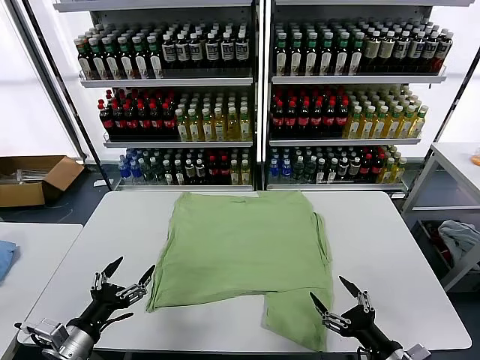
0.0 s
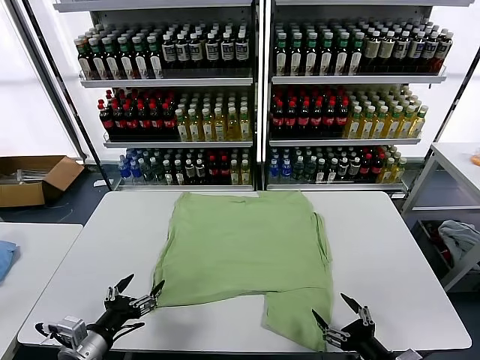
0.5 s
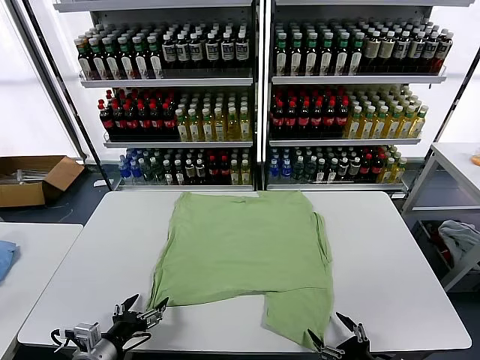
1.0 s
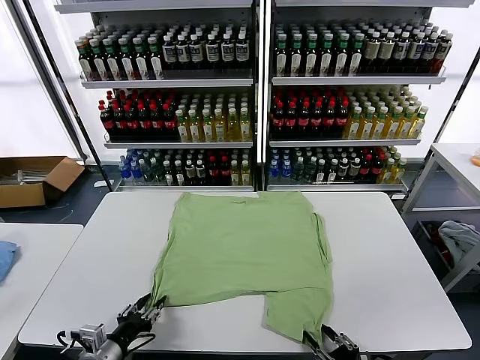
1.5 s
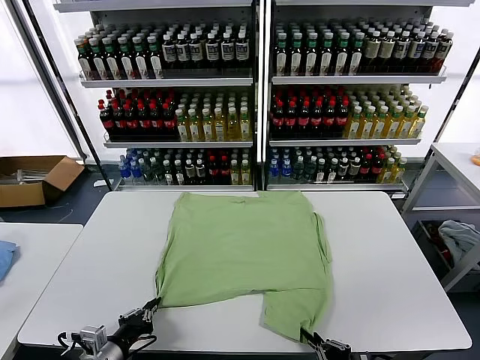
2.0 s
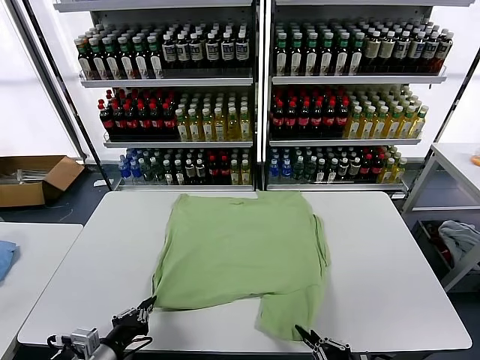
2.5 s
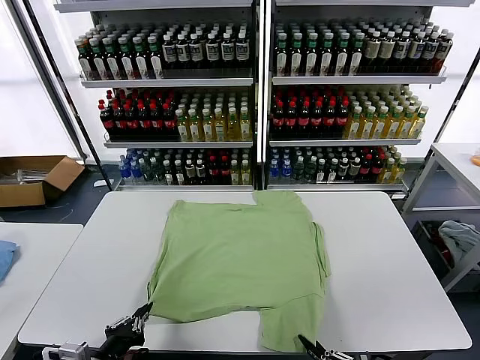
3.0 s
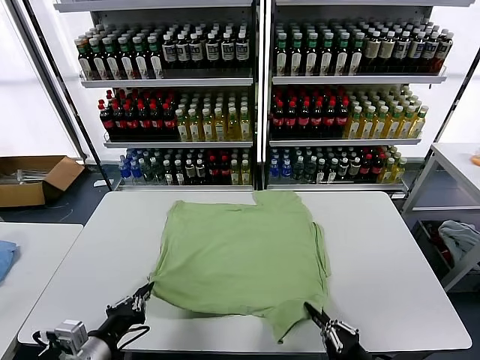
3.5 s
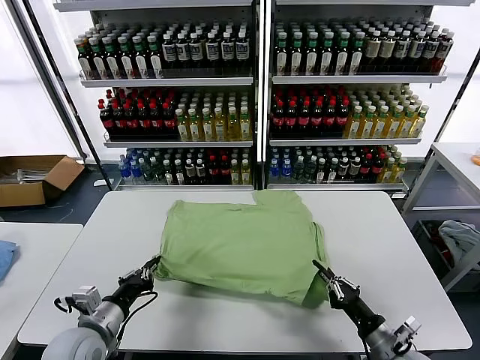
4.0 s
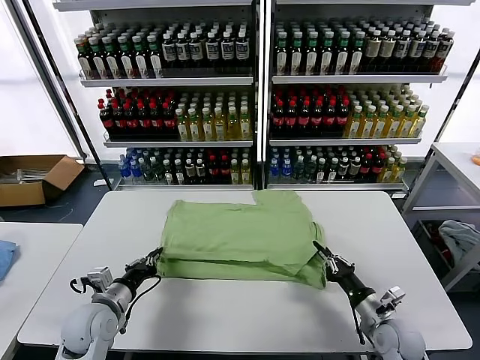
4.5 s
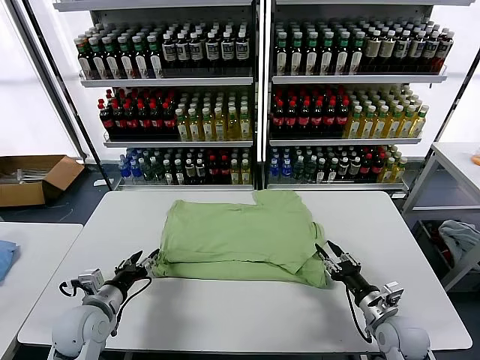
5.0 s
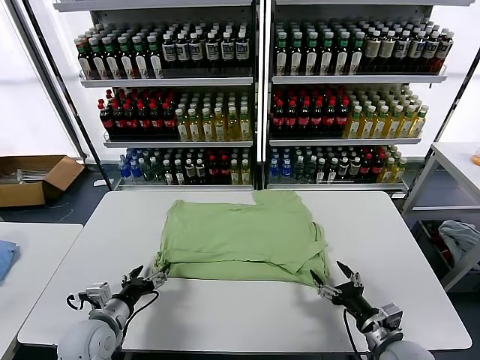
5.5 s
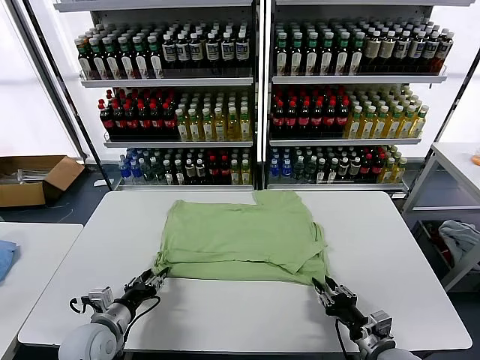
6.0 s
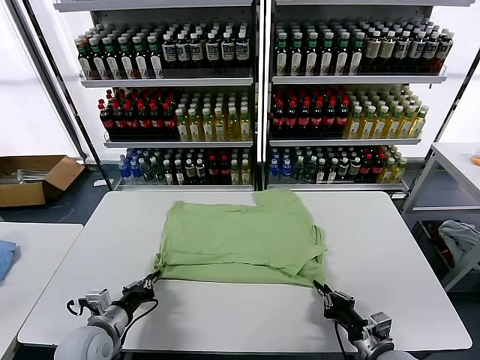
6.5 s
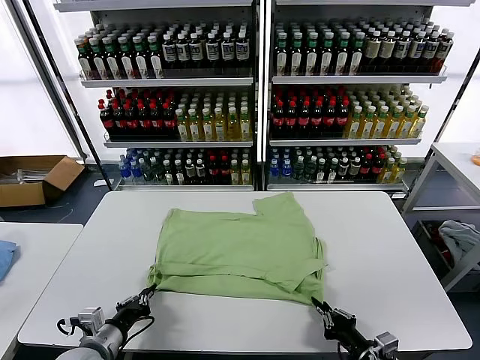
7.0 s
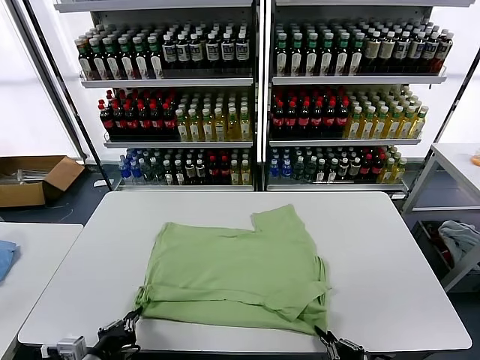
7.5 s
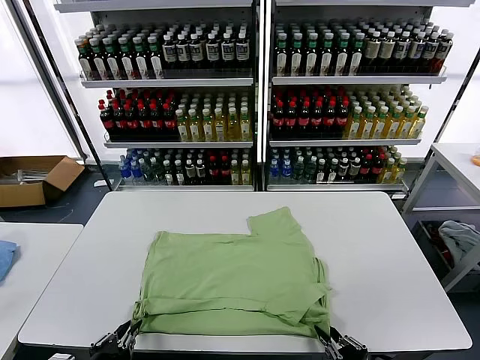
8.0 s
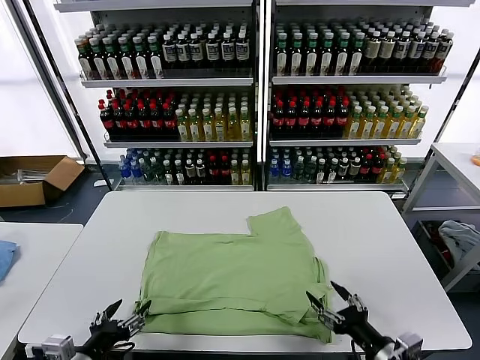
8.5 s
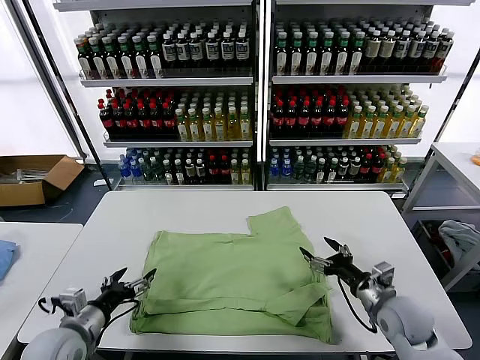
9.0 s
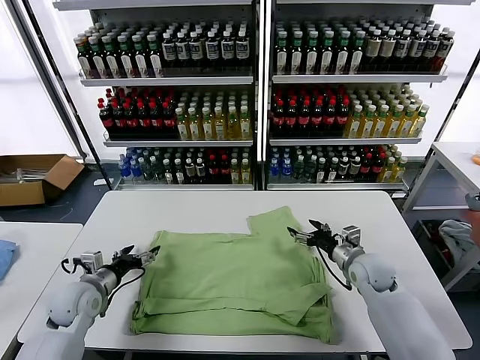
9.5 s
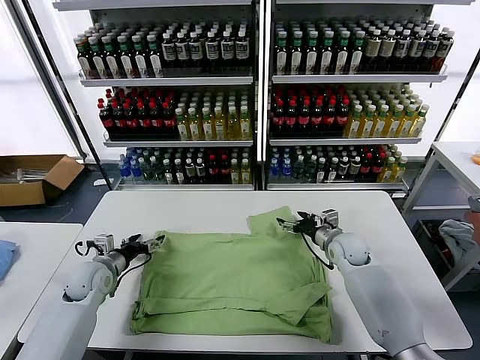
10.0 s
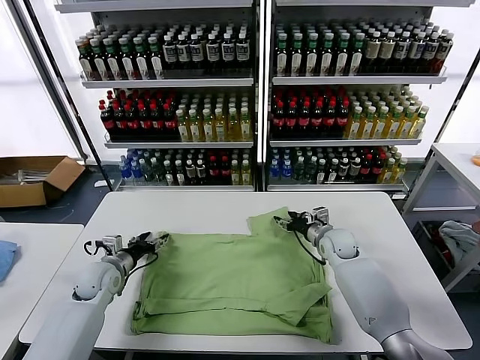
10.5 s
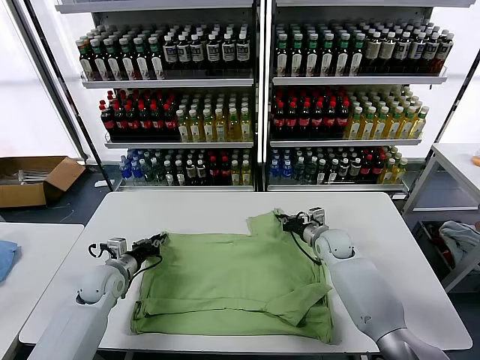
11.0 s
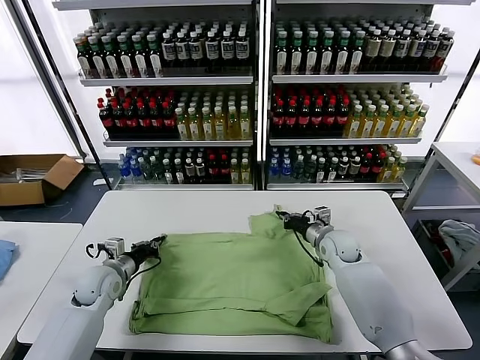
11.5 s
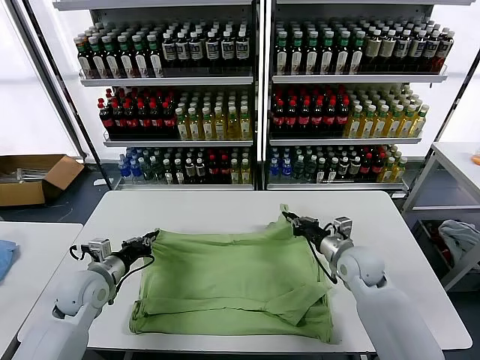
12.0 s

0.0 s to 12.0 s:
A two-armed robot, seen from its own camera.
Task of the whole recording: fold and organize the clothes.
Step, 0.0 to 2.0 s: use both grippers simultaneously to clamp the lower edge of the clothing fabric.
Step, 2.5 to 5.0 s: use both grippers to drag the lower edge of the fabric forward and fold it over the upper edge.
Step, 5.5 to 8.0 s: Drag the clothes downward with both gripper.
Step, 8.5 to 11.0 s: use both grippers simultaneously to clamp the upper edge of the clothing fabric.
2.0 to 4.0 s: The right gripper goes approximately 10 cm forward. Meanwhile the left gripper is displaced forward by about 5 cm.
4.0 to 6.0 s: The left gripper is displaced downward by roughly 5 cm, and opens up. Meanwhile the right gripper opens, then closes again.
6.0 to 8.0 s: Both grippers move backward, approximately 15 cm.
8.0 to 10.0 s: Both grippers move forward, about 35 cm. The right gripper opens its fingers, while the left gripper opens its fingers.
10.0 to 12.0 s: The left gripper ends up about 5 cm from where it was, and closes up. The right gripper heads backward, covering about 10 cm, and closes.

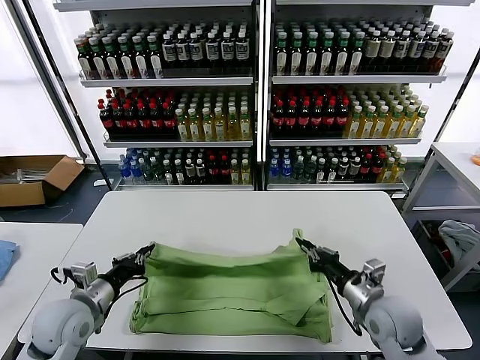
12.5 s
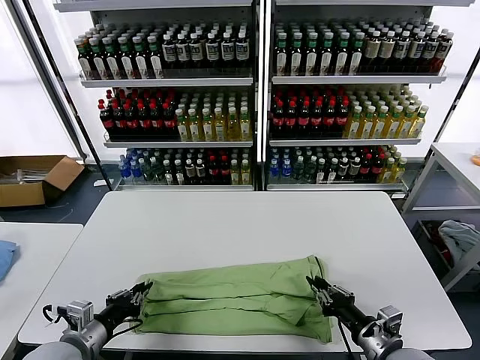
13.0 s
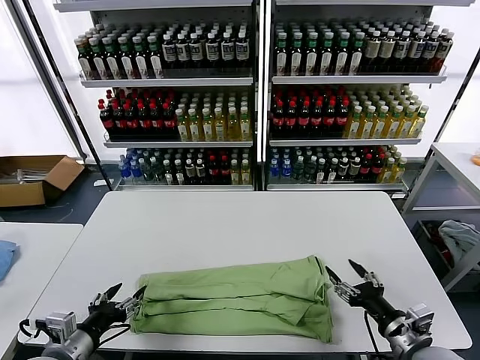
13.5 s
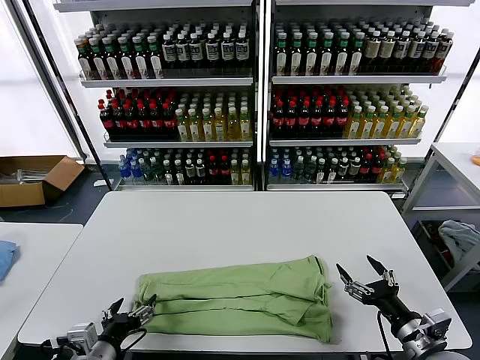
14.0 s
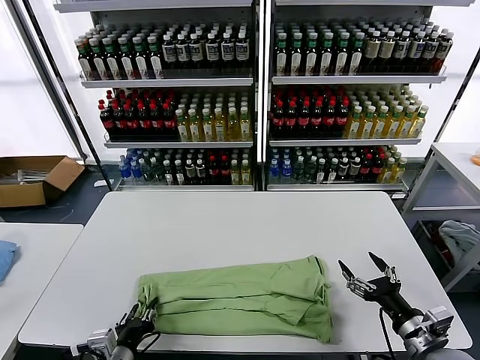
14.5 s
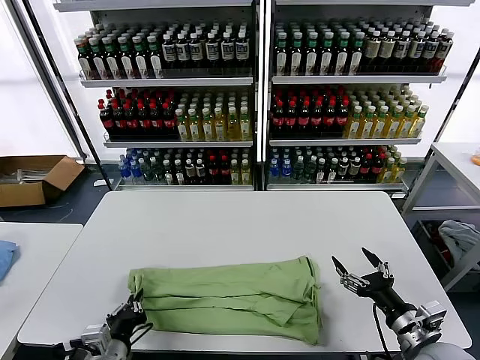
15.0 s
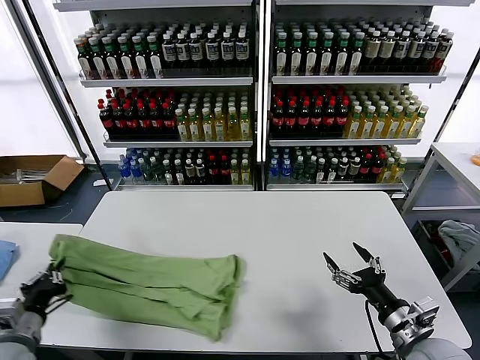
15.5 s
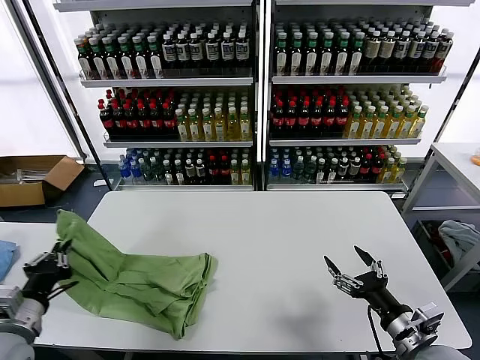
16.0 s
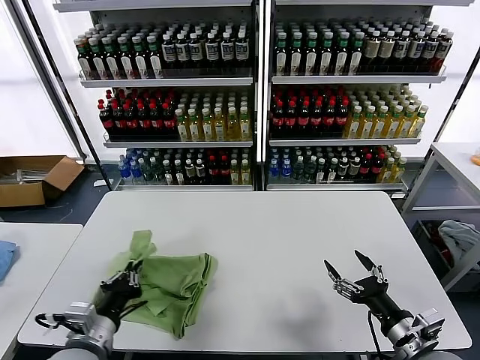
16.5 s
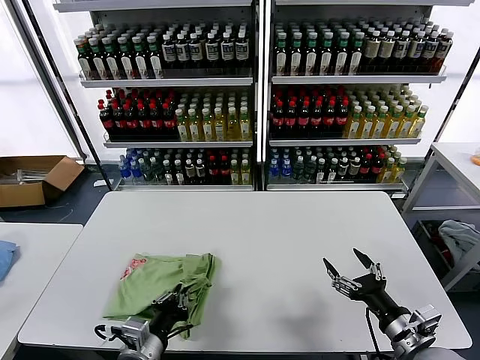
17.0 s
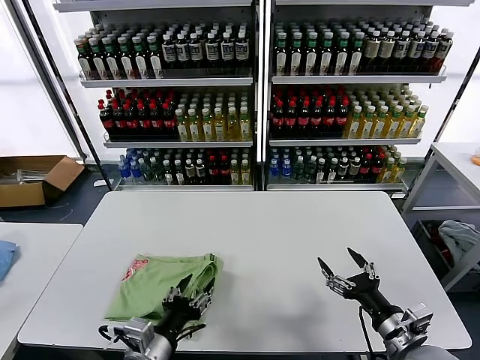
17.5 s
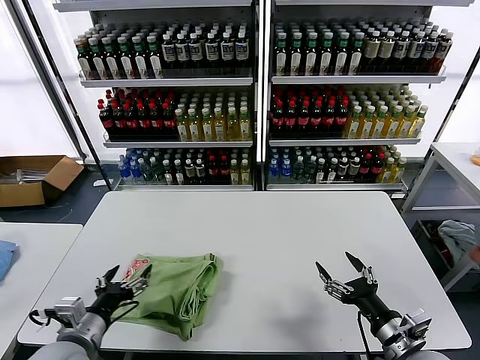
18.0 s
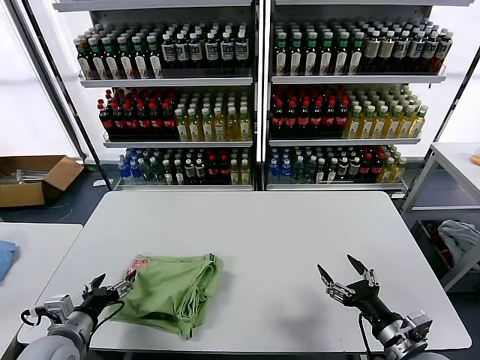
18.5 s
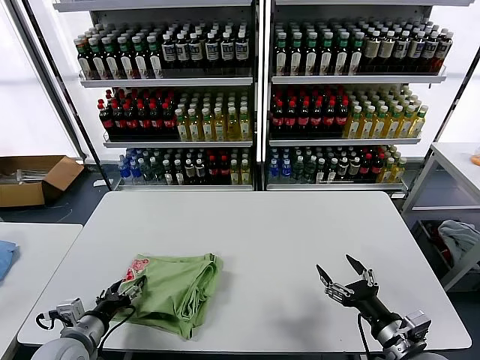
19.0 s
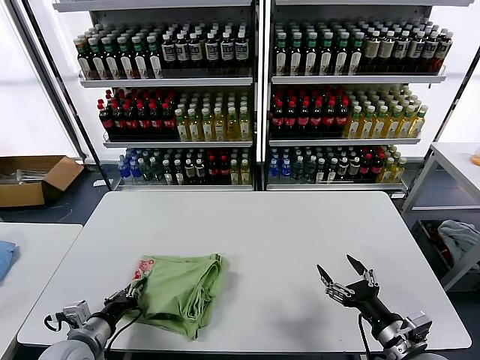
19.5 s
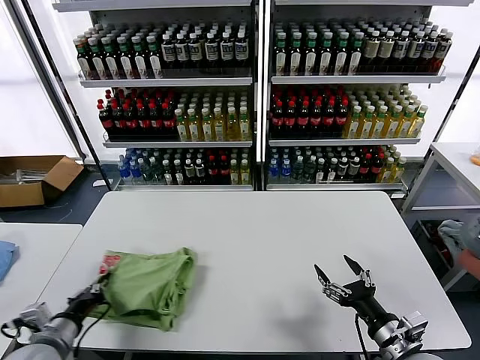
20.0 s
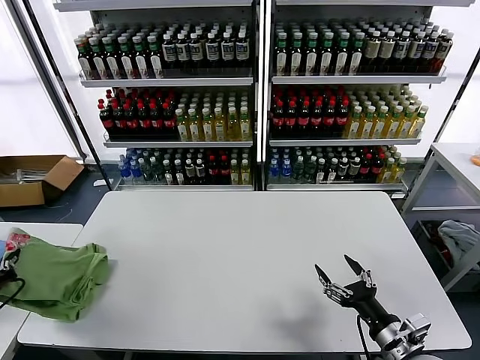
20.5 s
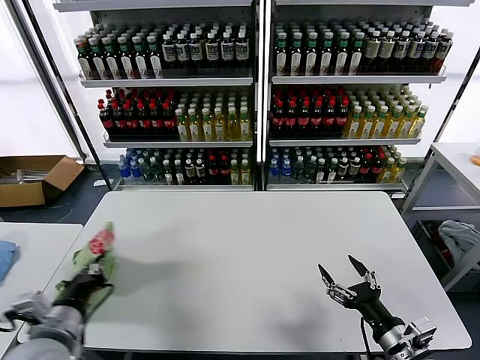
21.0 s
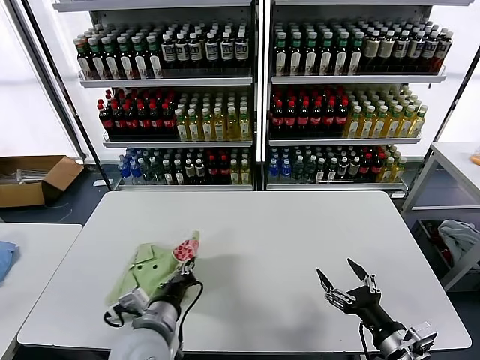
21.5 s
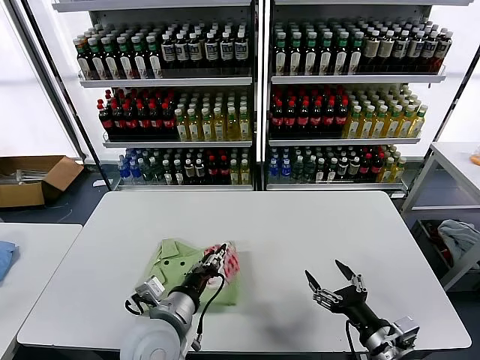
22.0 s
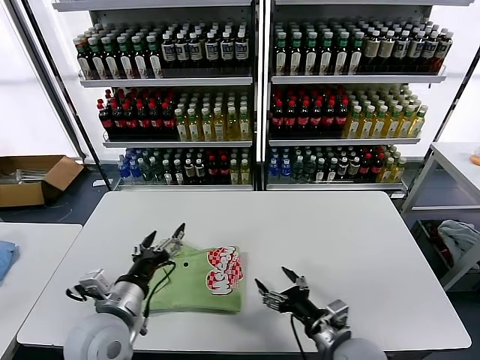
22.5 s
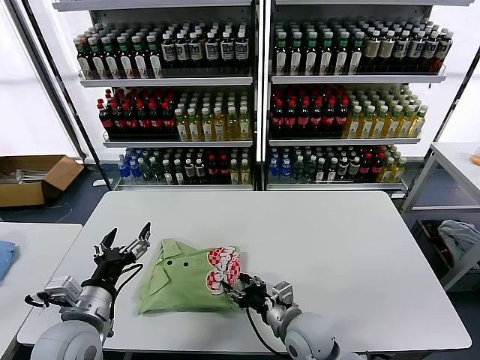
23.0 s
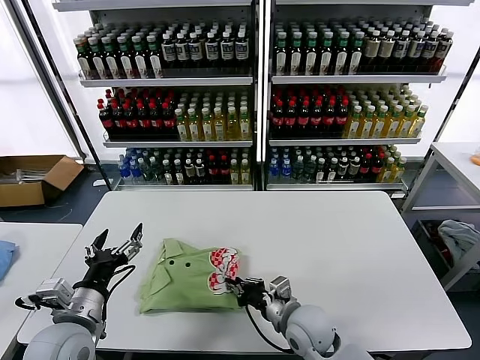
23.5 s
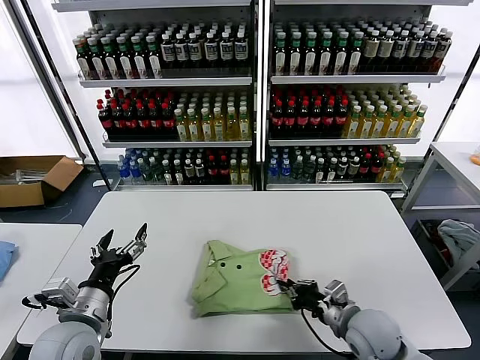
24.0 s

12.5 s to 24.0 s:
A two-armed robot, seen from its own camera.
Task of the whole recording: fold and organize the clothes.
Step, 13.5 to 14.5 s: use the left gripper to clamp the left edge of the fabric.
Step, 15.0 to 17.0 s: use the left gripper to drag the left edge of the fabric to the left and folds it over the right edge.
Step, 18.0 to 22.0 s: Flip the folded clothes over with left gripper.
12.5 to 14.5 s: The left gripper heads backward, to the right and downward, covering some 15 cm, and opens its fingers; the right gripper goes roughly 10 cm backward and to the right, and opens up.
14.5 to 16.5 s: The left gripper is displaced upward by roughly 5 cm, moves roughly 15 cm to the left and comes back, and closes up.
16.5 to 18.5 s: The left gripper shifts some 5 cm to the left, and opens up.
18.5 to 20.0 s: The left gripper closes up.
20.0 to 22.0 s: The left gripper shifts roughly 20 cm to the right.
22.0 to 24.0 s: The left gripper heads to the left, covering approximately 15 cm, and opens, while the right gripper moves forward, some 10 cm, goes to the left and returns, roughly 15 cm each way, and closes its fingers.

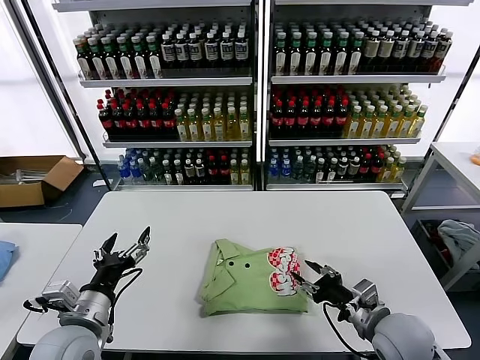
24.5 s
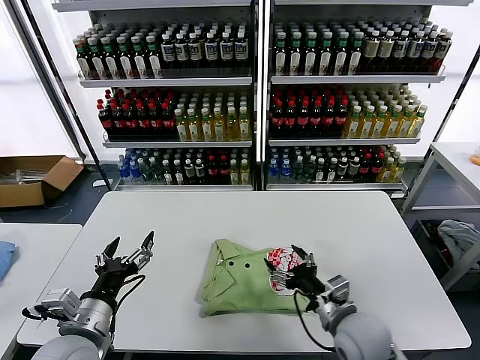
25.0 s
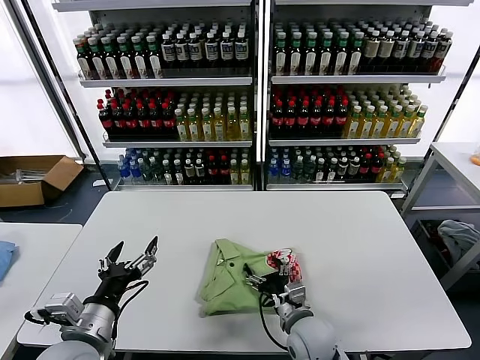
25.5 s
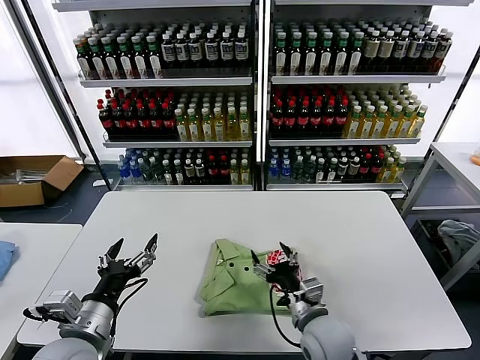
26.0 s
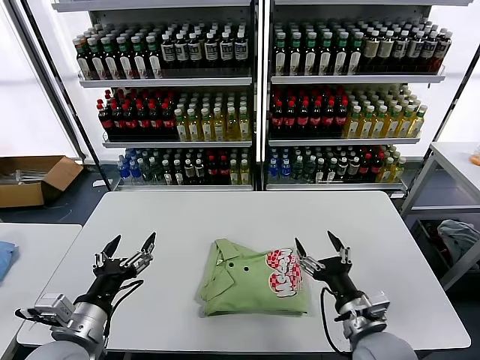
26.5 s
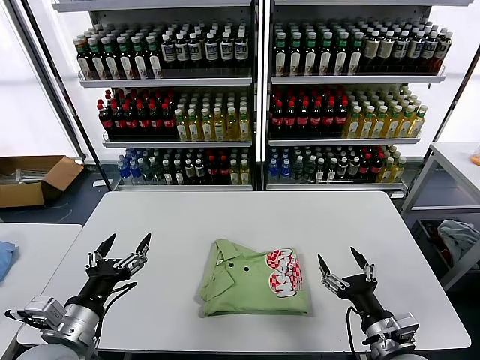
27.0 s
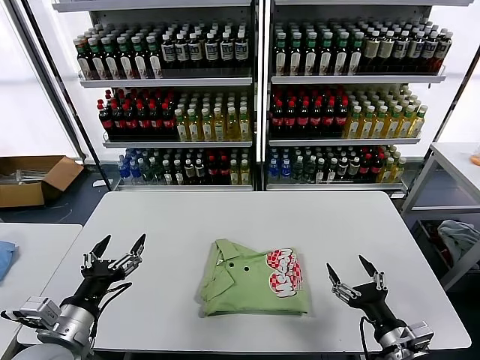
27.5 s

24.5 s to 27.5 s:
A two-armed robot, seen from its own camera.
Task of the whole recording: fold and organize the clothes.
24.5 to 26.0 s: The right gripper travels to the left by approximately 15 cm, and opens.
26.0 to 27.5 s: The right gripper moves to the right and backward, roughly 20 cm.
